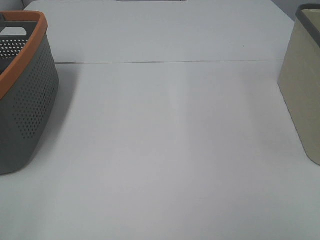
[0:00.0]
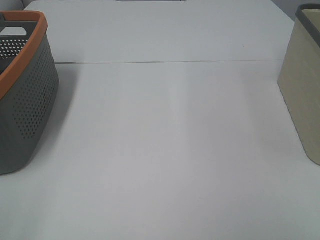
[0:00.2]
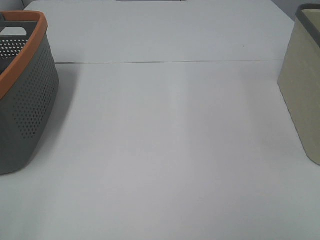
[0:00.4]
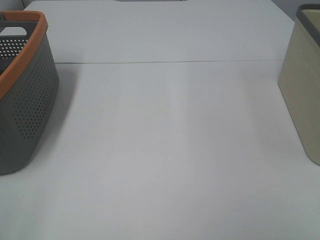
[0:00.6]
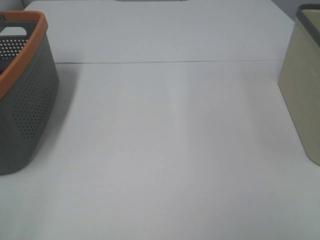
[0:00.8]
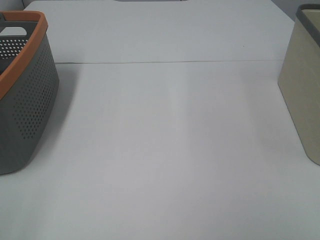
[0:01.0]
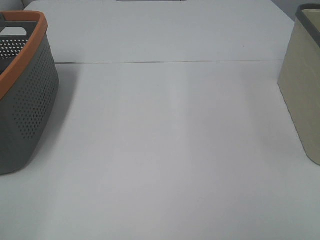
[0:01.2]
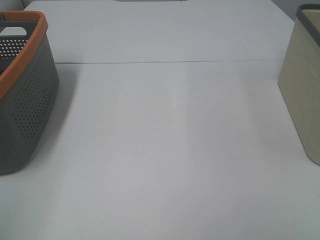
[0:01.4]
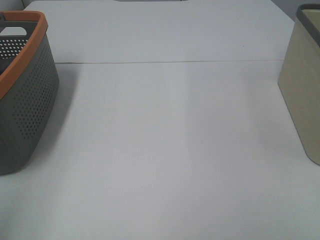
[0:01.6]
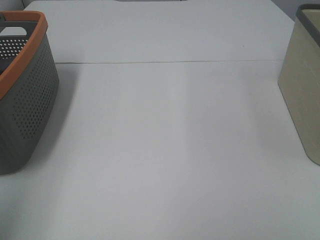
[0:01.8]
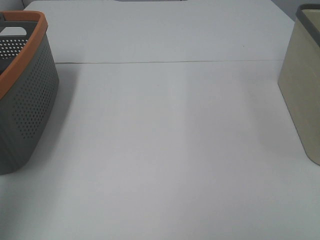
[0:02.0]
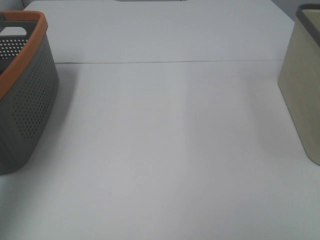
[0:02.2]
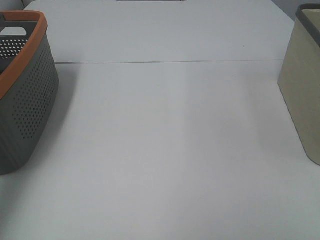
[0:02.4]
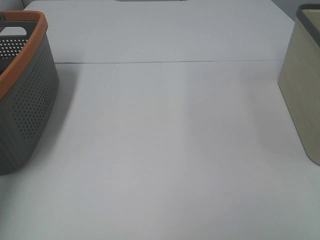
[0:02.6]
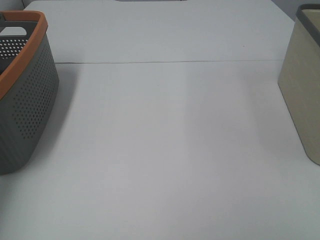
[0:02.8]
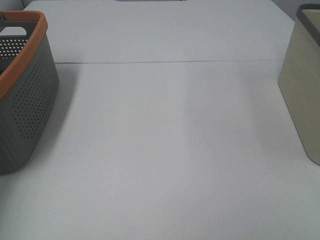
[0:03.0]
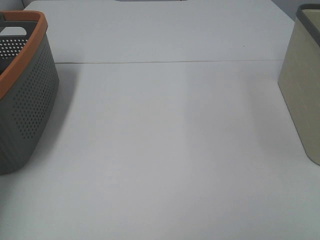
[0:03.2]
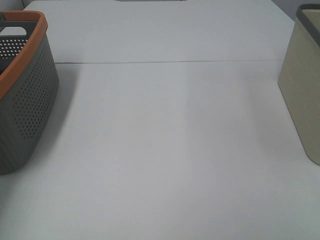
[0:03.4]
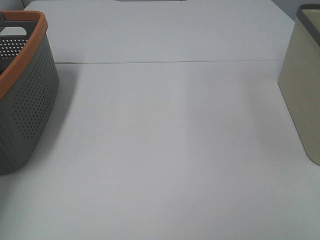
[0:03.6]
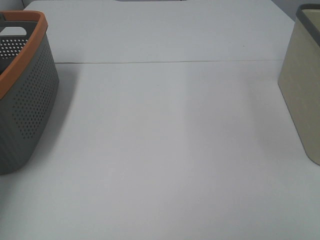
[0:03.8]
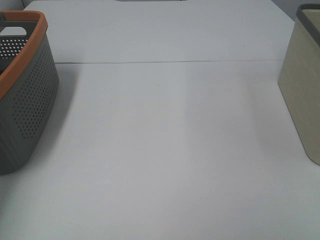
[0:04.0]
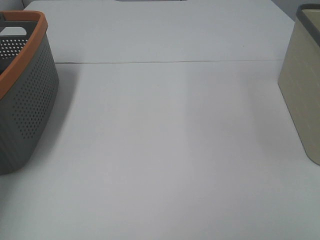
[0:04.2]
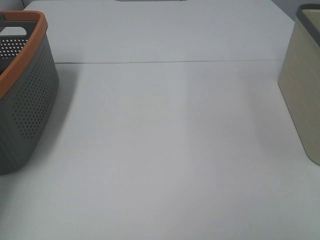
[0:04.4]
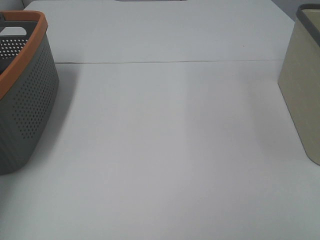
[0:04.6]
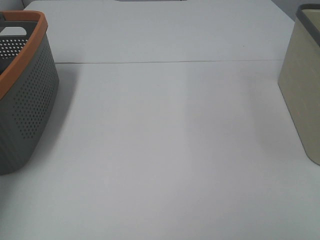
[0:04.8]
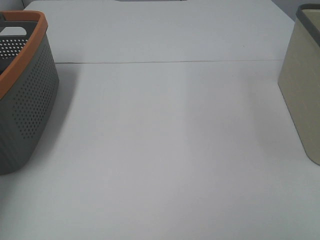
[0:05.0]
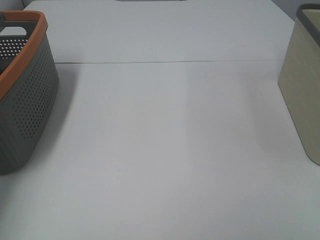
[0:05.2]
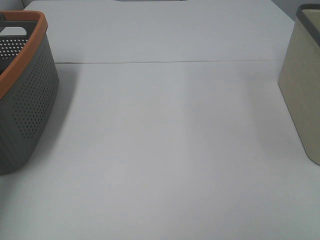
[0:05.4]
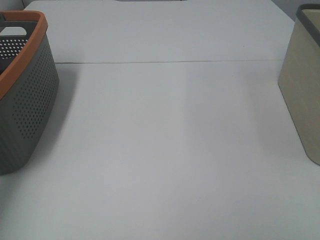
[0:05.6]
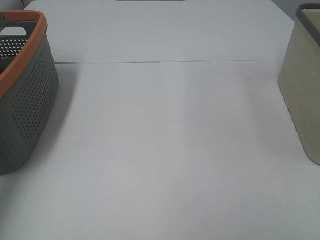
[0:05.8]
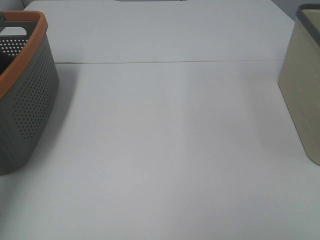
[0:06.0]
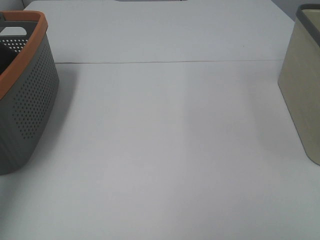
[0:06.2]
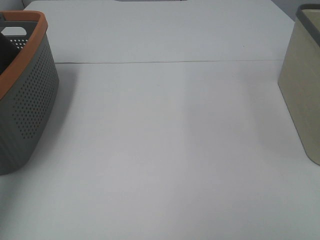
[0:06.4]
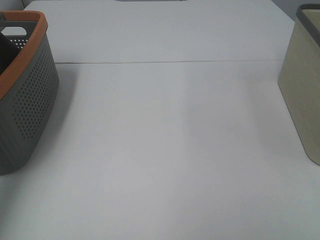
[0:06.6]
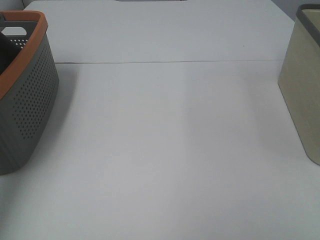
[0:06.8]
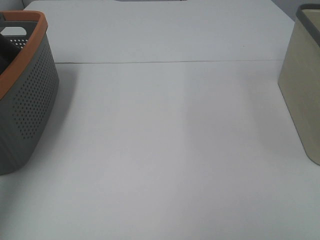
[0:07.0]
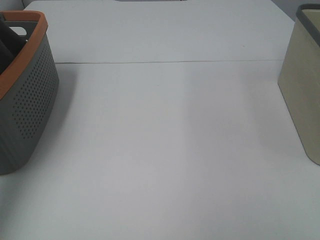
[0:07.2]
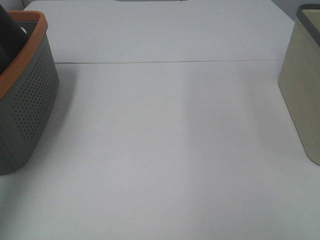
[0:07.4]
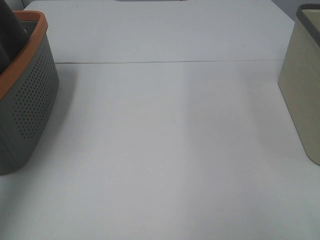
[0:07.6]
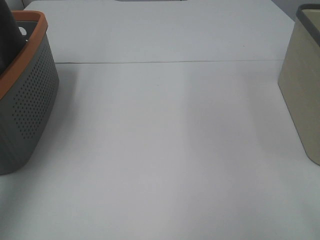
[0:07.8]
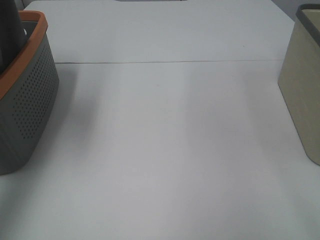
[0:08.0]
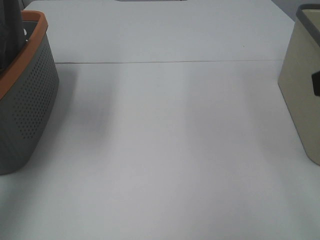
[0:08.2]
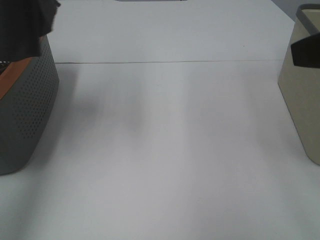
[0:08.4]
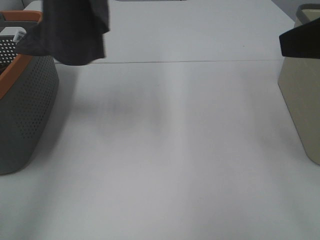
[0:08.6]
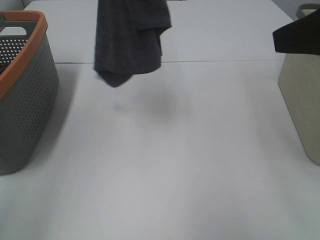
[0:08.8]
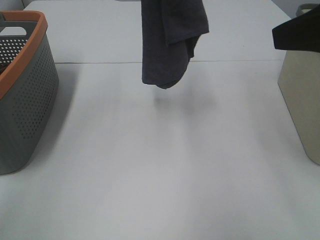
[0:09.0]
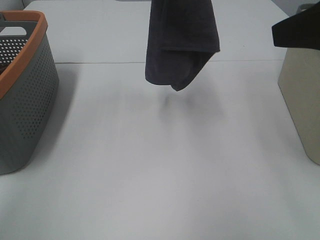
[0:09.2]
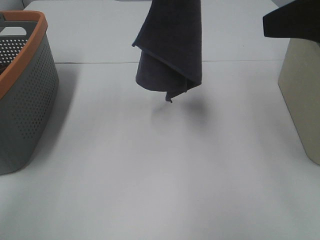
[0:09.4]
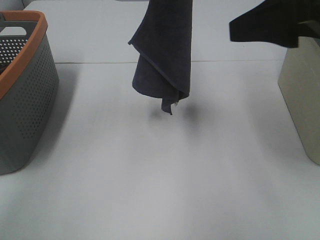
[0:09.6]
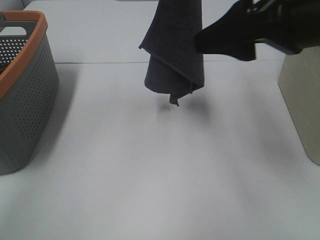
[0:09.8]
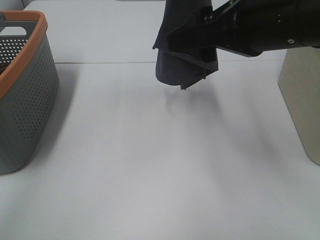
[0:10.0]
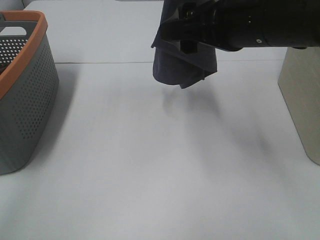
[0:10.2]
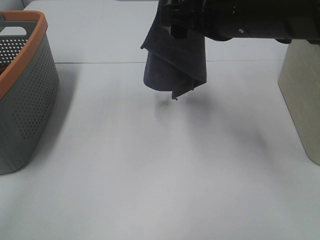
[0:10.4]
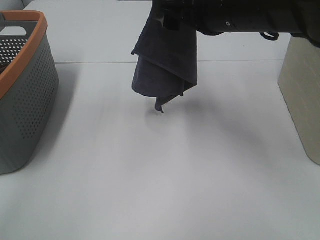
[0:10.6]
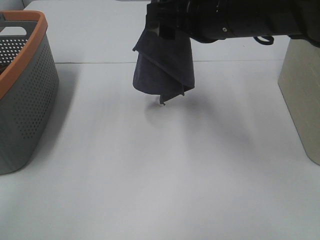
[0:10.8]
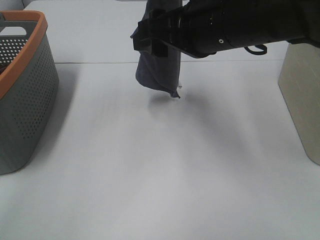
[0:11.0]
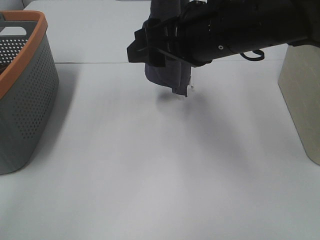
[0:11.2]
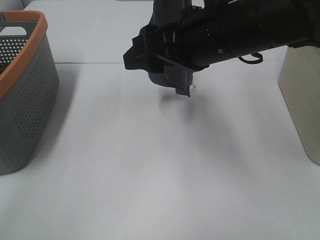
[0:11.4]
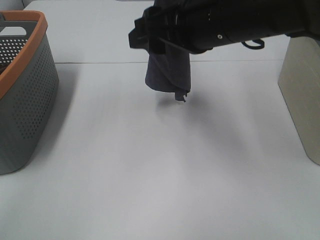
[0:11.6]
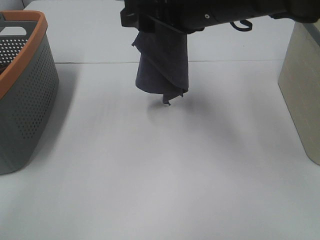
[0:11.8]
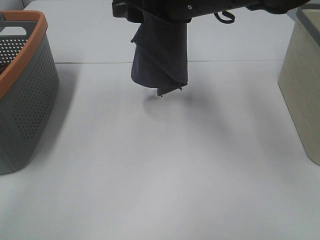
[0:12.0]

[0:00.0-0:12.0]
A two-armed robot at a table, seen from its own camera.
Task of the whole recording: Remove the towel and place it.
0:06.0 to 0:07.6: The left gripper travels upward by some 15 cm.
0:07.6 to 0:09.0: The right gripper travels forward by some 15 cm; the left gripper goes approximately 20 cm to the right.
0:09.0 to 0:10.4: The left gripper moves some 5 cm. Meanwhile the right gripper moves to the left, forward and downward, roughly 15 cm.
0:10.4 to 0:12.0: The right gripper shifts approximately 5 cm to the left.

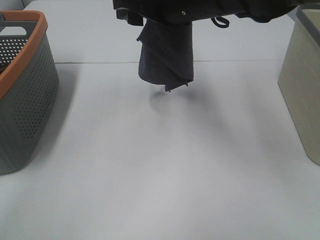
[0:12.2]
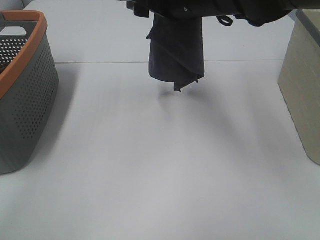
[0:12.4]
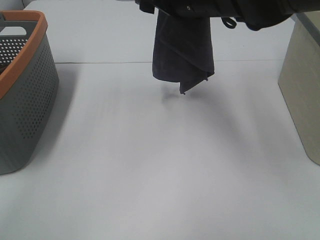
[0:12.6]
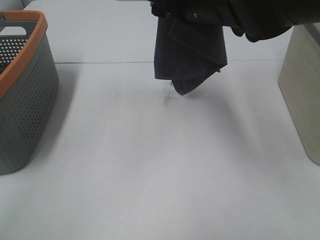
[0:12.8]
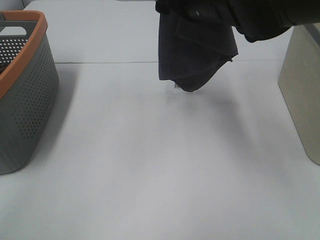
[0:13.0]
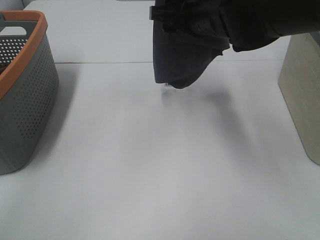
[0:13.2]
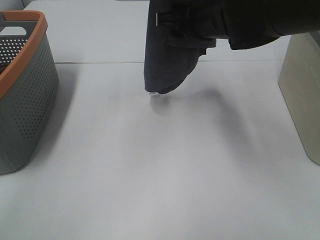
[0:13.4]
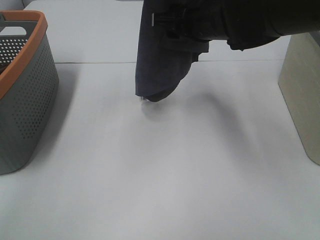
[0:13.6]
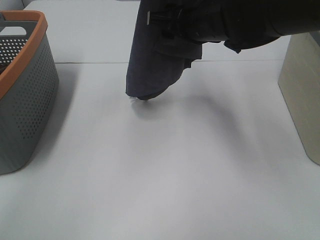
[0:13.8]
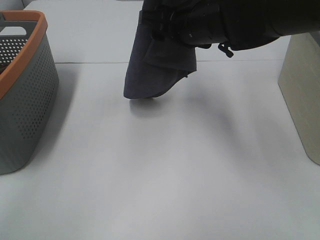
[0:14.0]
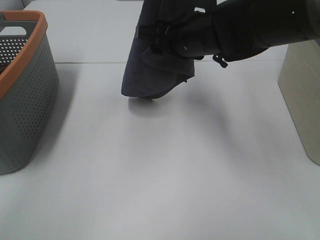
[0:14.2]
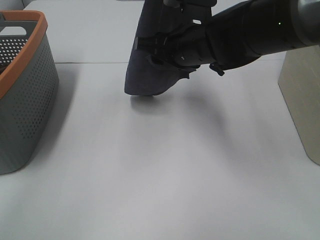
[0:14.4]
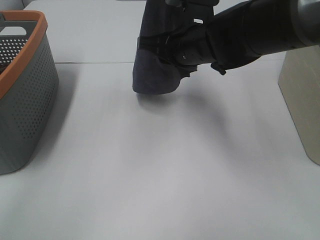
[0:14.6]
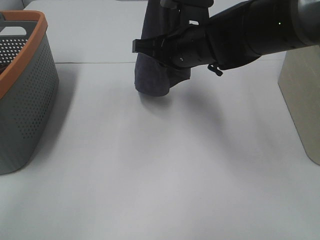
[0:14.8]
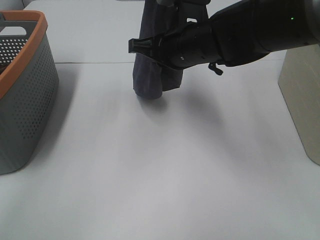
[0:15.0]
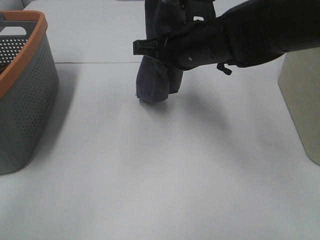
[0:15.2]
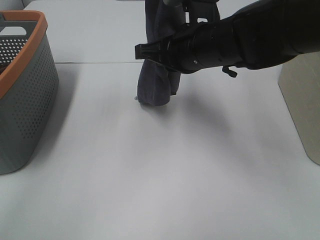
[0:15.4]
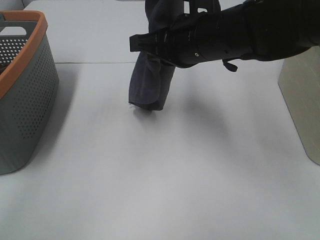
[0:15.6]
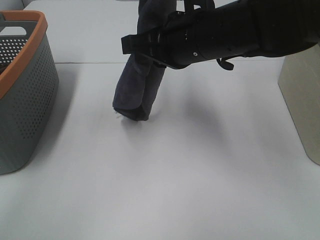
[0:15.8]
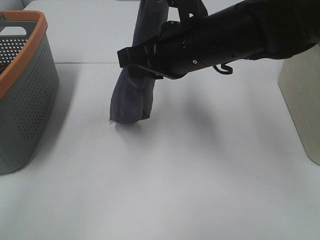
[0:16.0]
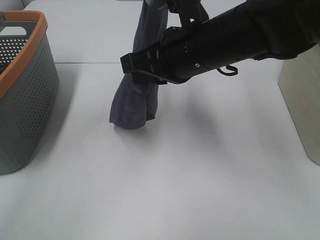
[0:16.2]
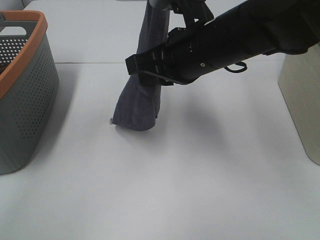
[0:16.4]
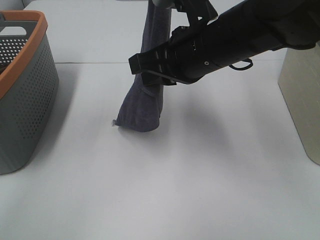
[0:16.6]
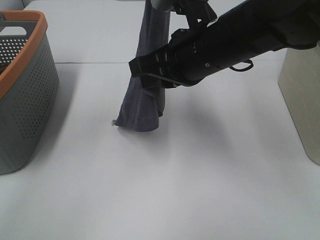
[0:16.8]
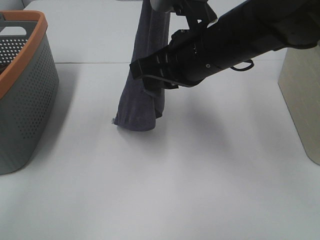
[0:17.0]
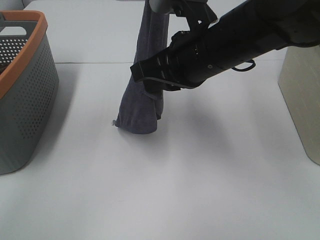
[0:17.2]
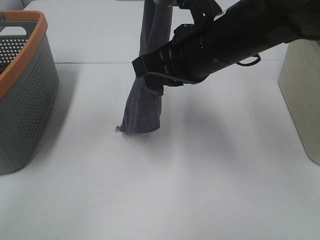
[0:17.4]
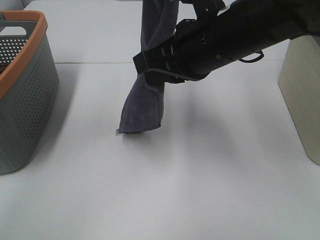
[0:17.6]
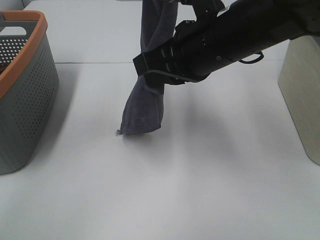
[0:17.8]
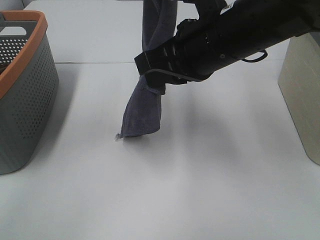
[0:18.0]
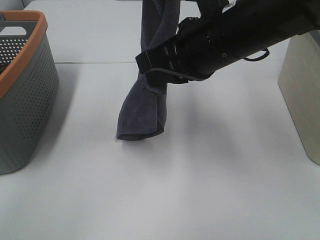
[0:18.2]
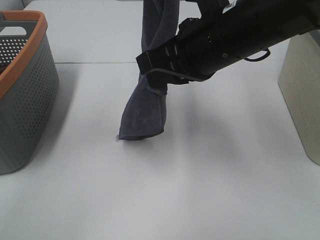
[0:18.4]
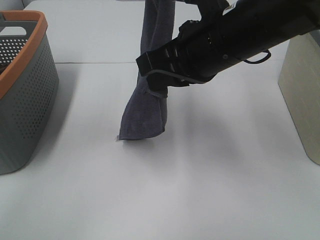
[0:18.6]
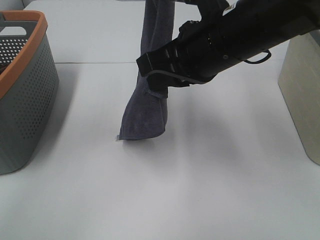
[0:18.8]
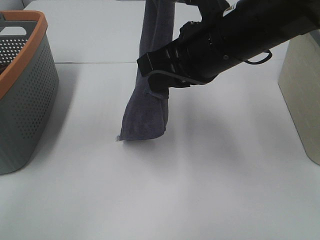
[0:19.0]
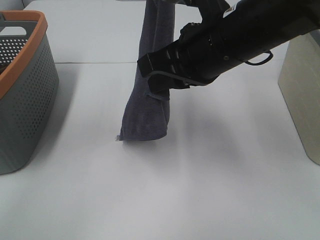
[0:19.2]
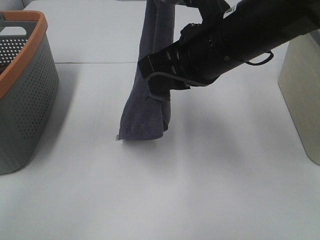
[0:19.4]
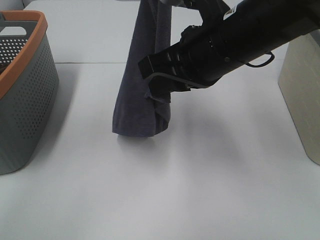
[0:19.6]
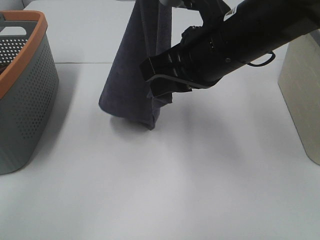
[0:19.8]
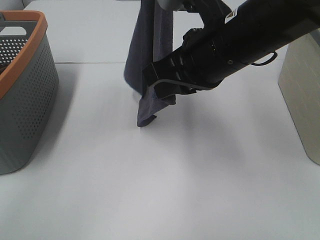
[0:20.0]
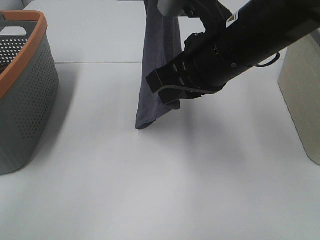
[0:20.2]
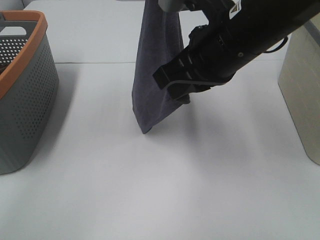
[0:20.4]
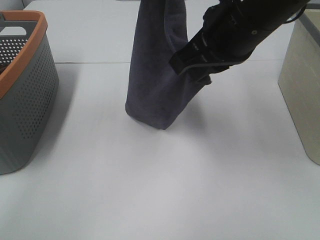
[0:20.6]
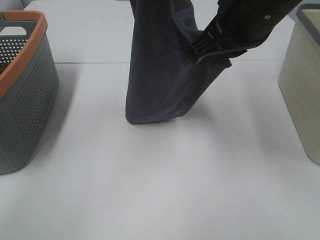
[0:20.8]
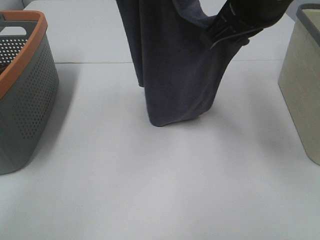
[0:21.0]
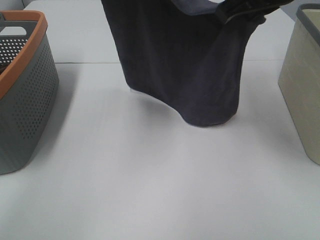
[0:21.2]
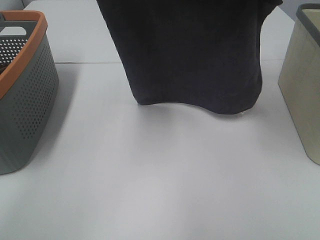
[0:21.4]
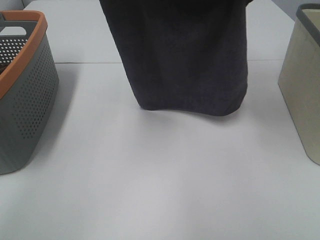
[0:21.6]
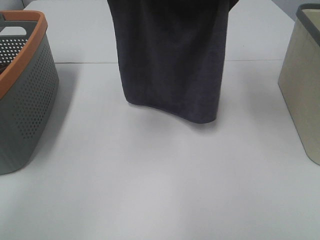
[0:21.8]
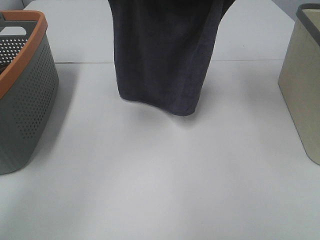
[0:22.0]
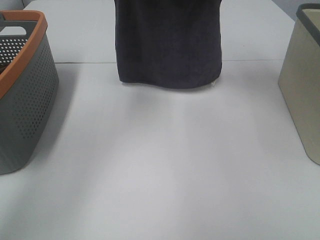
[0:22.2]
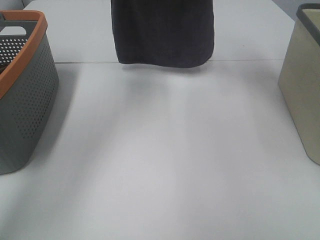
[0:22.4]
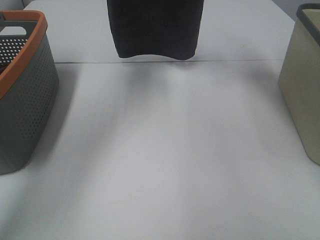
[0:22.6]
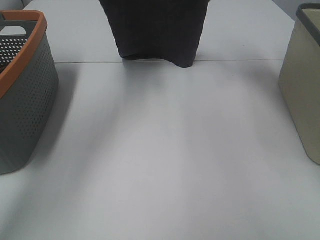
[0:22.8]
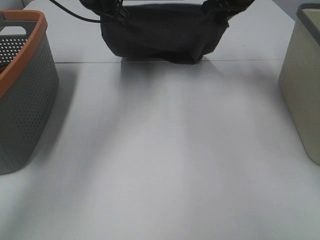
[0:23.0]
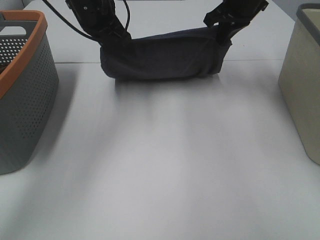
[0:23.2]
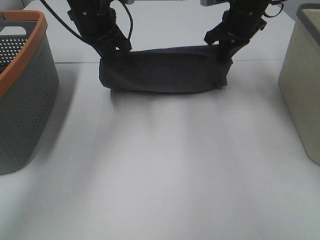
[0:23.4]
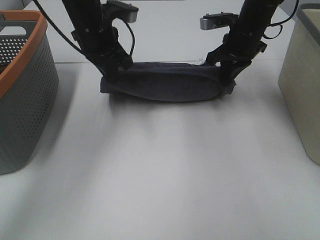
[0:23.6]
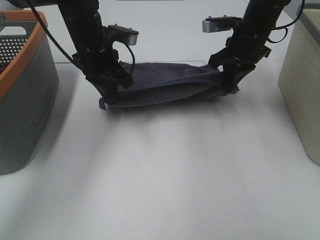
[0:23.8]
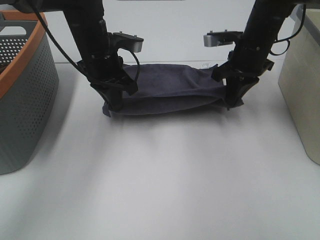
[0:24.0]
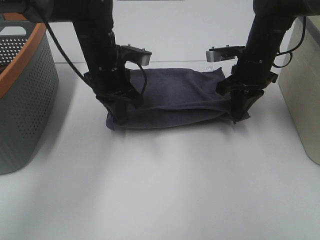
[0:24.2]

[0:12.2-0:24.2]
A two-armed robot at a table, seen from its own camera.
Task of the whole recording: Remove the towel and place it.
Step, 0:12.2 to 0:17.6: Right hand: grab a corner of the grey towel and straighten it.
Step, 0:17.8 to 0:19.8: Right hand: spread the grey towel flat on the table.
0:12.2 to 0:13.8: The right gripper changes place by roughly 5 cm.
0:13.8 to 0:15.2: The right gripper closes its fingers.
0:15.2 to 0:16.6: The right gripper shifts by approximately 5 cm.
0:16.6 to 0:19.8: The grippers stay close to where they were, moving slightly.
0:19.8 to 0:21.2: The right gripper goes about 10 cm upward and to the right.
0:21.2 to 0:22.6: The left gripper moves forward, roughly 10 cm. Meanwhile the right gripper shifts some 20 cm forward.
0:22.6 to 0:24.2: Both grippers move downward and backward, about 20 cm.
